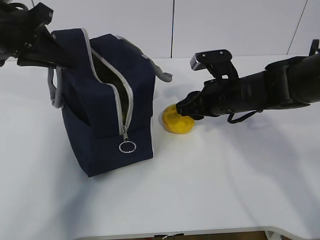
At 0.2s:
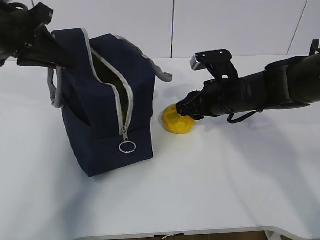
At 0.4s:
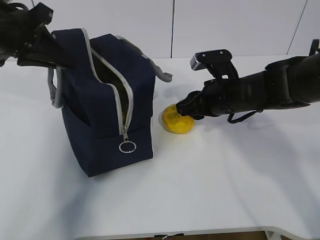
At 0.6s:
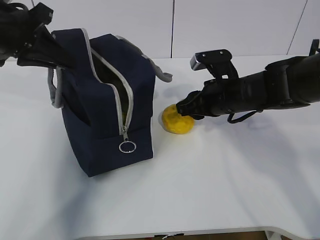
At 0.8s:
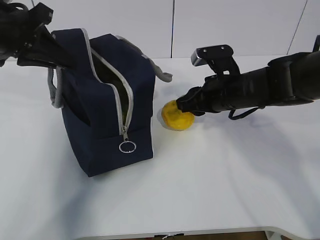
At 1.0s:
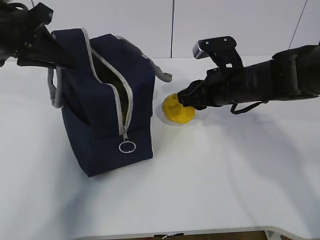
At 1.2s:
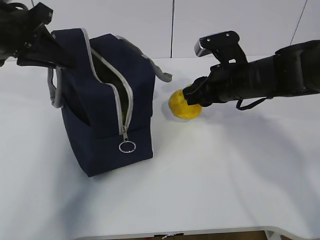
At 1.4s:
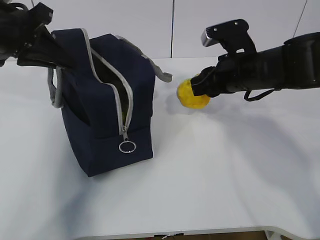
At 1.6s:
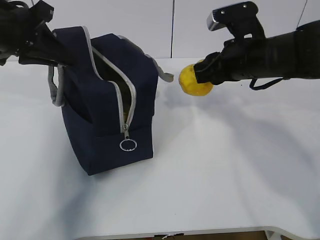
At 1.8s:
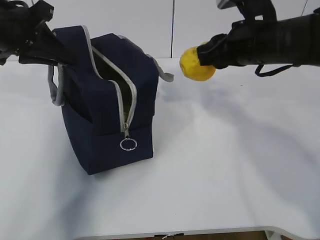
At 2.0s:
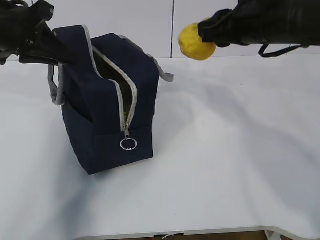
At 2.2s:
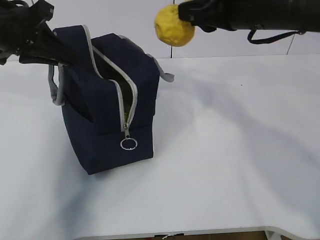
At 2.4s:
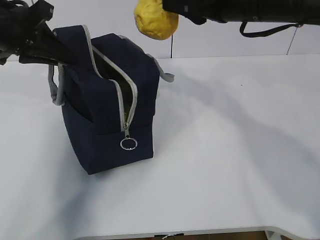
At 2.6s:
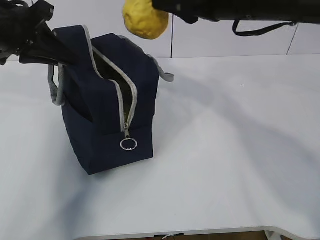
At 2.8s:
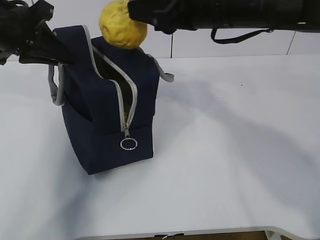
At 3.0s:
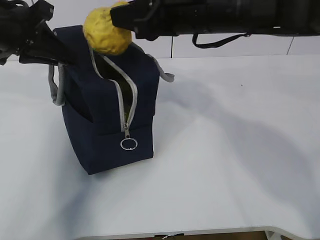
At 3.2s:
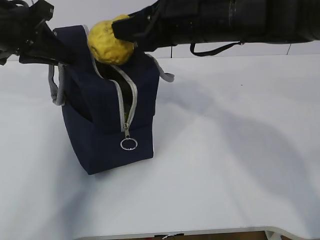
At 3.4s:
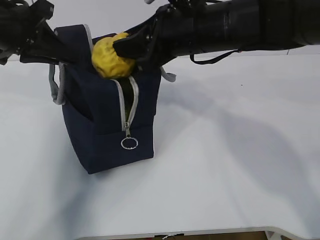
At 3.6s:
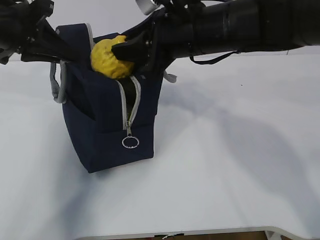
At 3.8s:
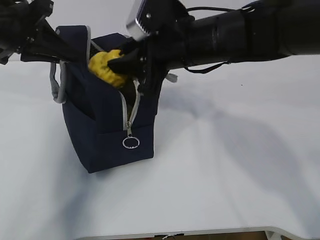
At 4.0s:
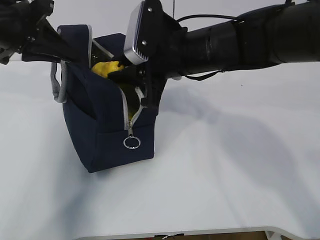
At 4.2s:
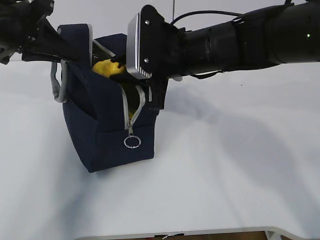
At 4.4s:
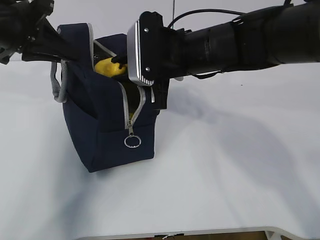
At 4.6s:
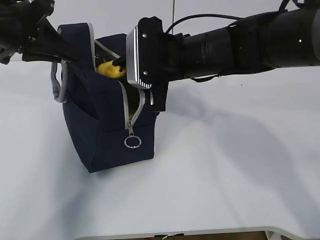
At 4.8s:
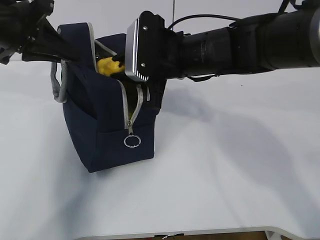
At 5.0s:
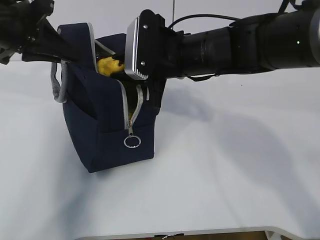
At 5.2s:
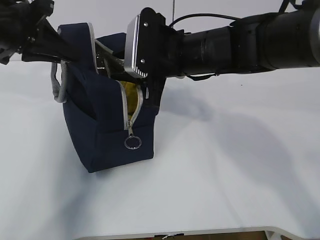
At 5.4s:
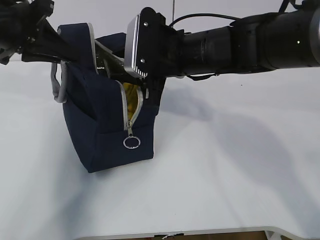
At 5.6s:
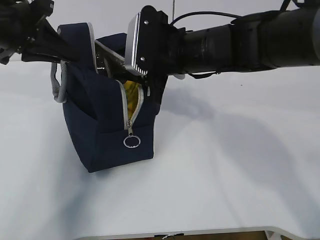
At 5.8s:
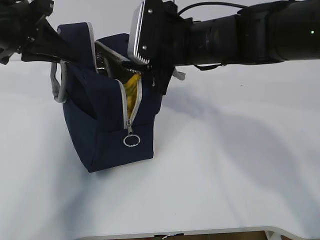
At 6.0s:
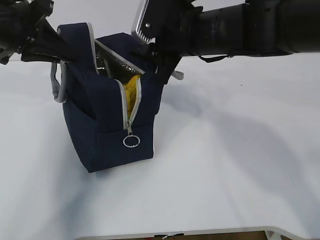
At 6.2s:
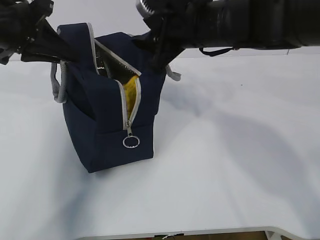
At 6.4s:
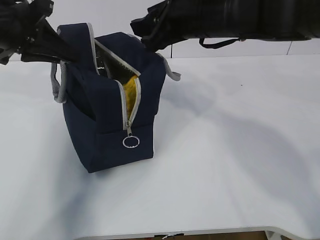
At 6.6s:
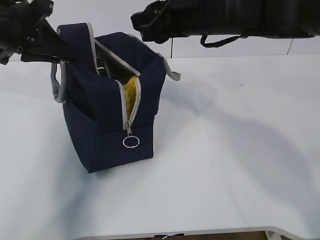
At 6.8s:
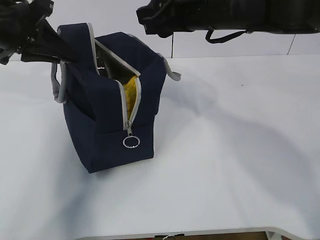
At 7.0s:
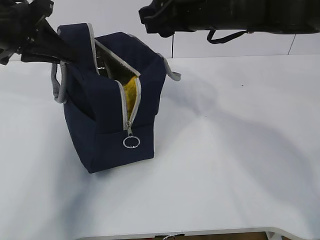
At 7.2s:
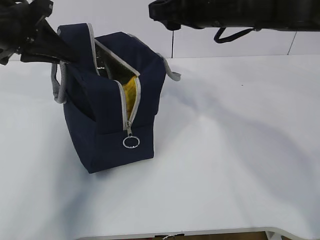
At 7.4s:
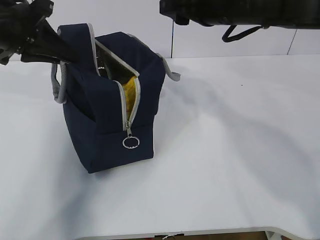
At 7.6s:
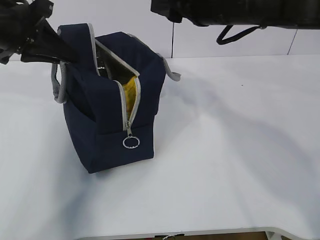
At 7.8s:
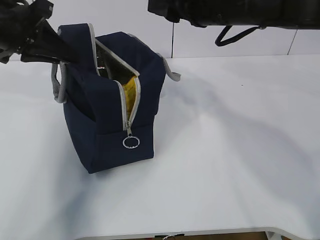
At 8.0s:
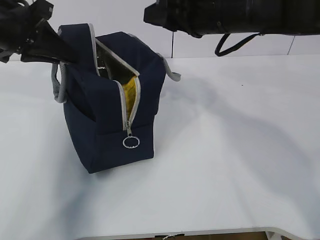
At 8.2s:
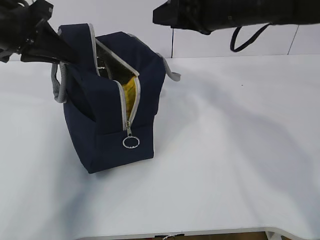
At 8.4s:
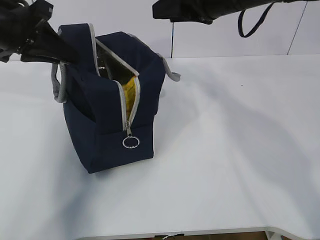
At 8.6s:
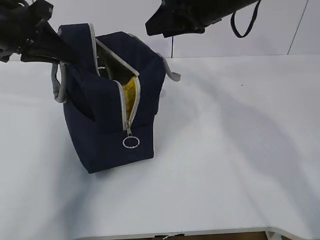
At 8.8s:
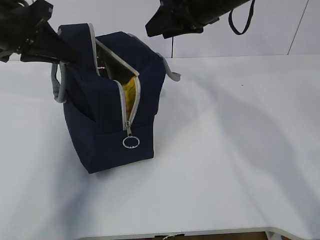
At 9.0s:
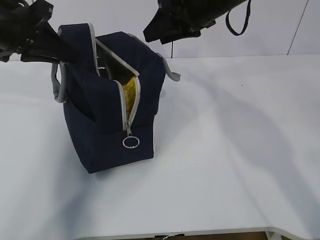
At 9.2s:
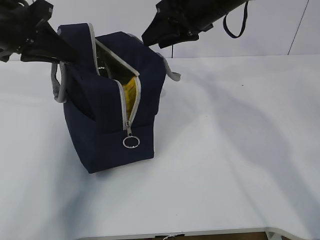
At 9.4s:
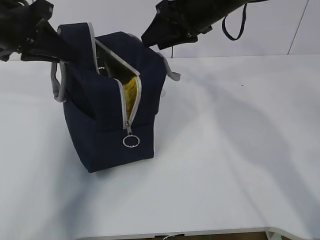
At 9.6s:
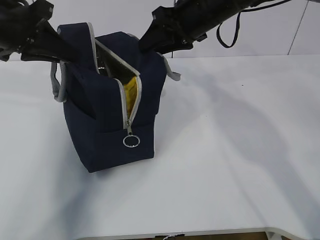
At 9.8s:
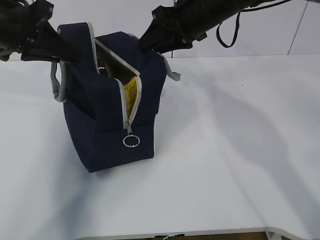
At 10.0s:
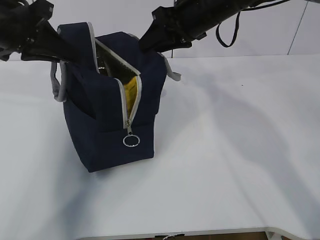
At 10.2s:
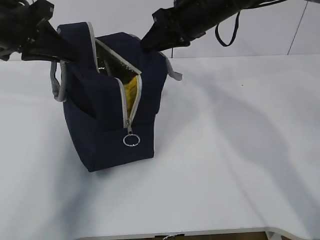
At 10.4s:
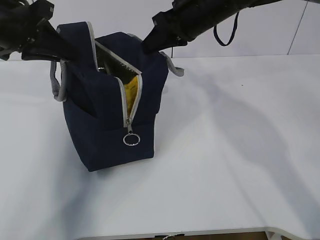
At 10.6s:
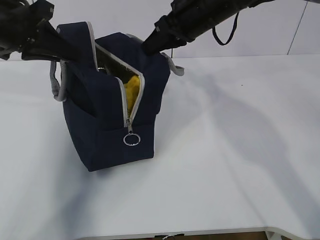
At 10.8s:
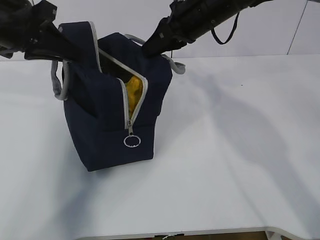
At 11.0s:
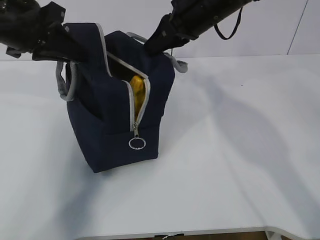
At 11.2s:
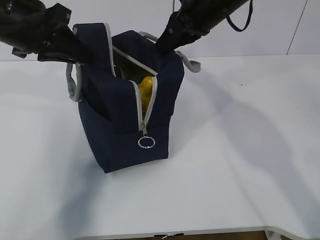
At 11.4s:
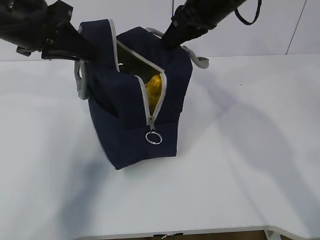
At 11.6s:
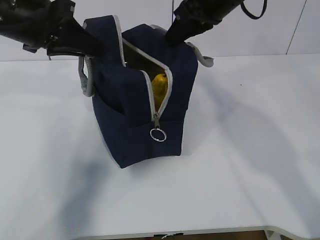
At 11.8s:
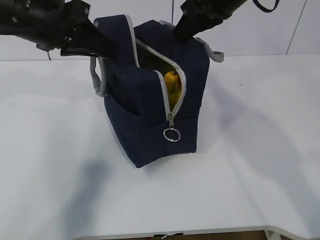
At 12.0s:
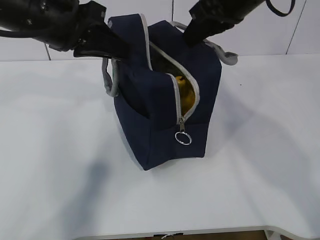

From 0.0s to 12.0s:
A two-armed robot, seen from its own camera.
From 0.0s to 1.6s: The right gripper moves upward, about 10 cm.
From 1.6s to 3.0s: The right gripper moves upward and to the left, roughly 10 cm.
From 3.0s to 4.4s: The right gripper travels downward by roughly 5 cm.
From 6.0s to 7.6s: The right gripper changes place by approximately 5 cm.
From 7.6s to 9.0s: The right gripper travels forward by about 5 cm.
From 9.0s to 10.4s: The right gripper closes its fingers.
From 10.4s to 12.0s: The right gripper is displaced backward and upward by roughly 10 cm. The left gripper travels to the right by some 10 cm.

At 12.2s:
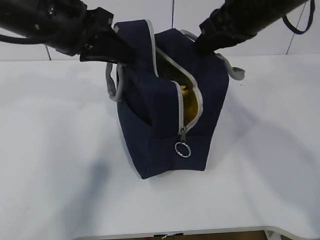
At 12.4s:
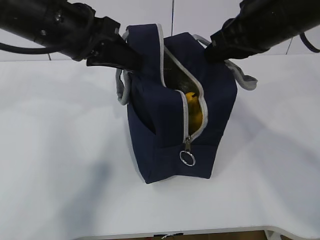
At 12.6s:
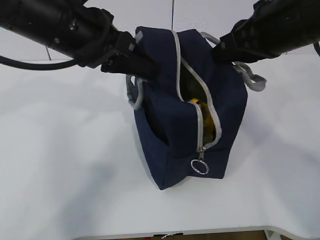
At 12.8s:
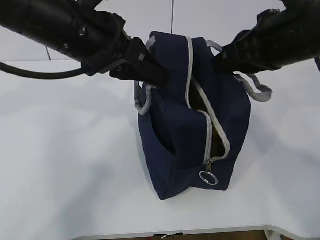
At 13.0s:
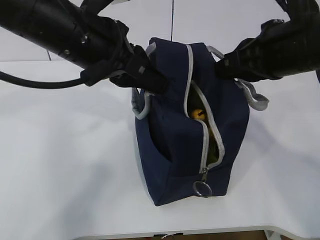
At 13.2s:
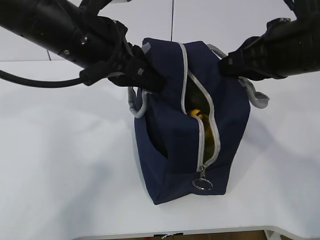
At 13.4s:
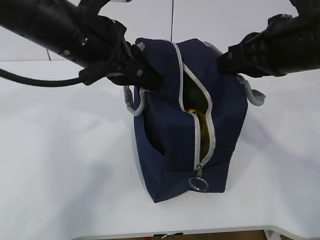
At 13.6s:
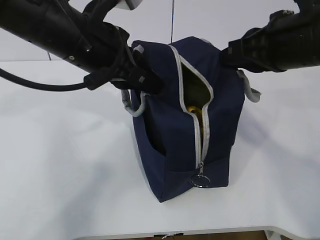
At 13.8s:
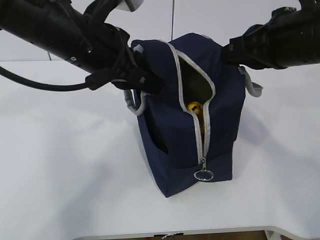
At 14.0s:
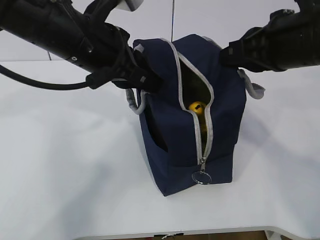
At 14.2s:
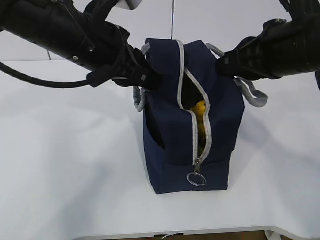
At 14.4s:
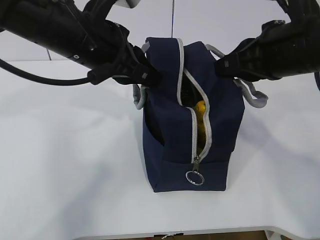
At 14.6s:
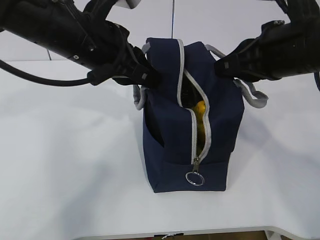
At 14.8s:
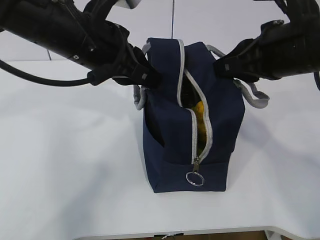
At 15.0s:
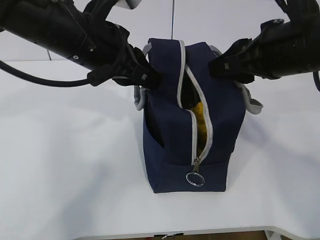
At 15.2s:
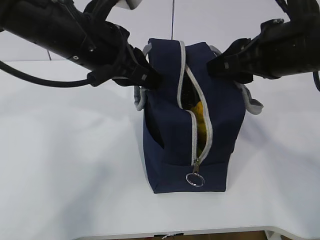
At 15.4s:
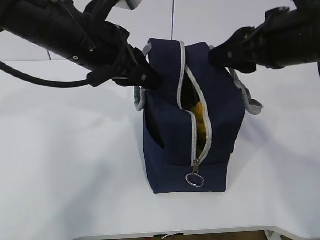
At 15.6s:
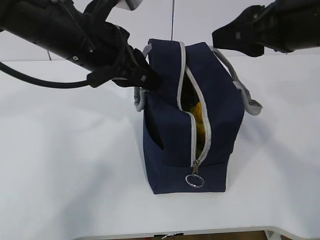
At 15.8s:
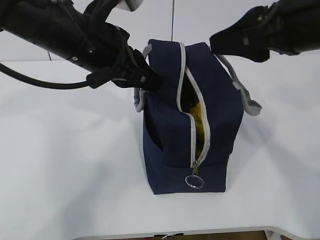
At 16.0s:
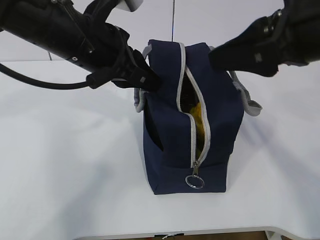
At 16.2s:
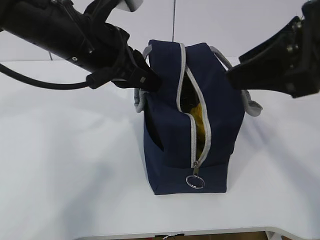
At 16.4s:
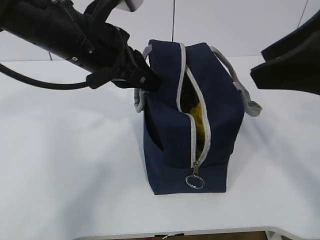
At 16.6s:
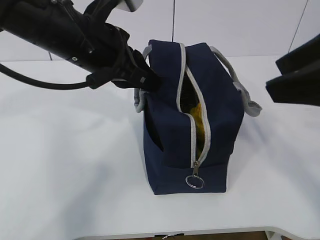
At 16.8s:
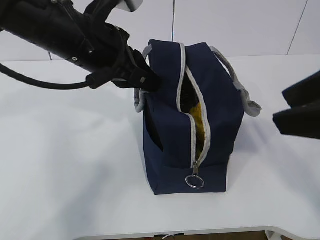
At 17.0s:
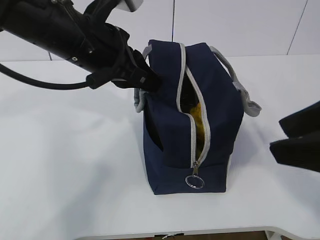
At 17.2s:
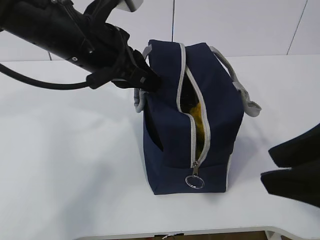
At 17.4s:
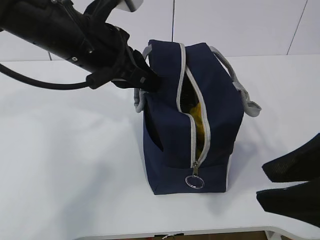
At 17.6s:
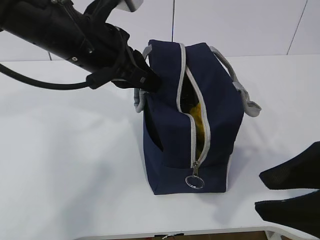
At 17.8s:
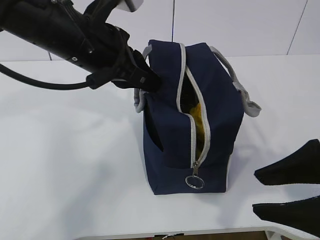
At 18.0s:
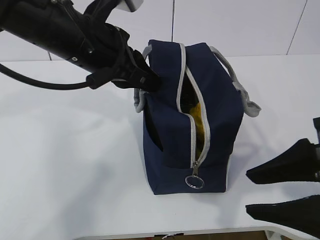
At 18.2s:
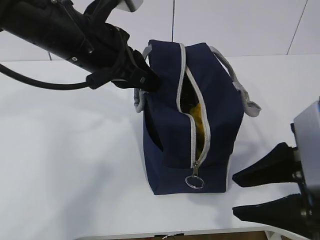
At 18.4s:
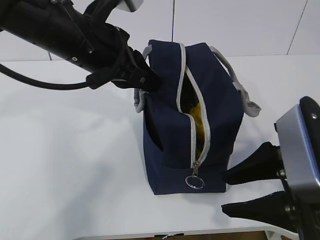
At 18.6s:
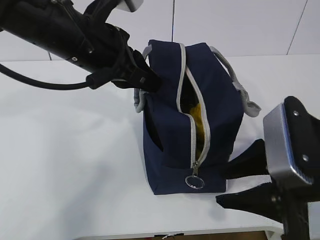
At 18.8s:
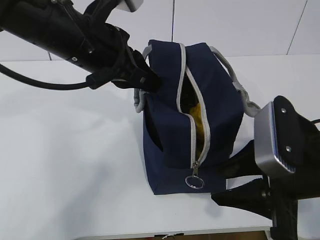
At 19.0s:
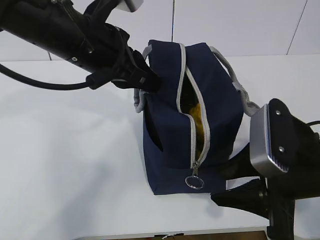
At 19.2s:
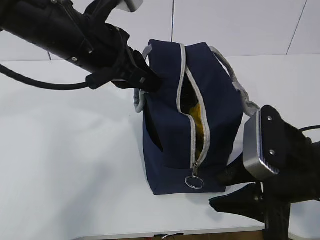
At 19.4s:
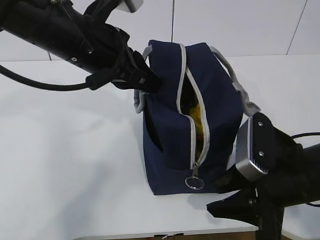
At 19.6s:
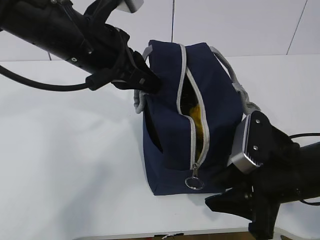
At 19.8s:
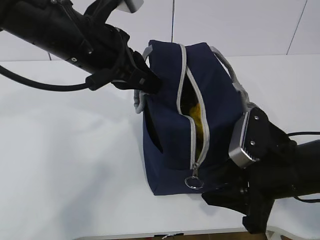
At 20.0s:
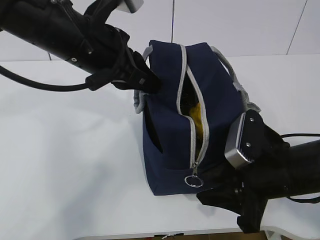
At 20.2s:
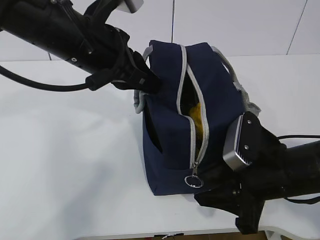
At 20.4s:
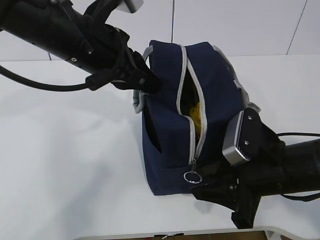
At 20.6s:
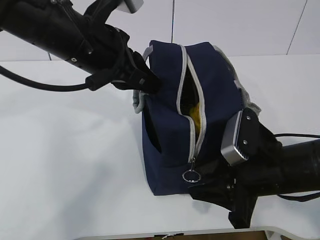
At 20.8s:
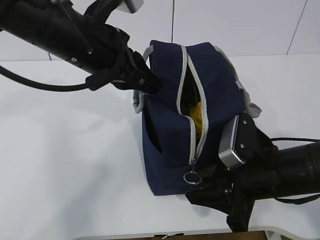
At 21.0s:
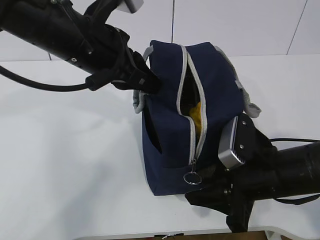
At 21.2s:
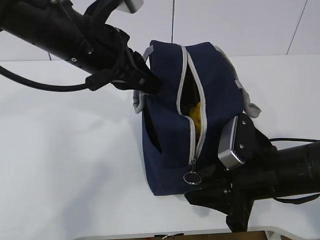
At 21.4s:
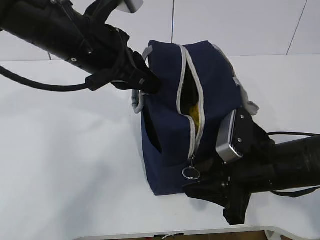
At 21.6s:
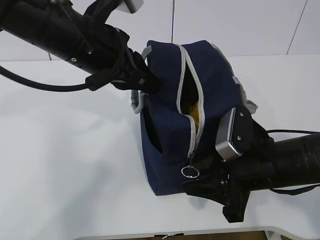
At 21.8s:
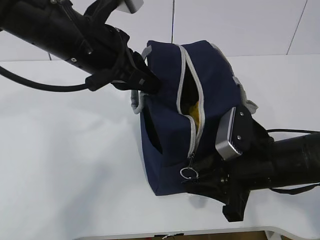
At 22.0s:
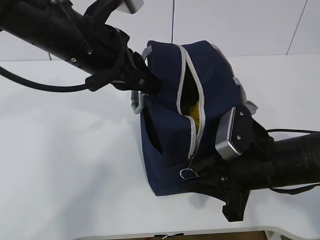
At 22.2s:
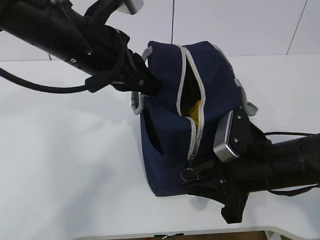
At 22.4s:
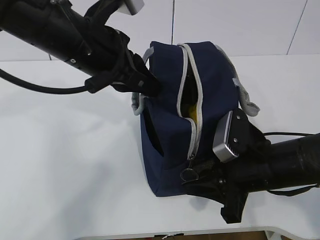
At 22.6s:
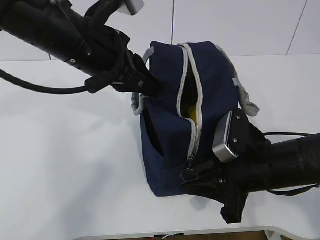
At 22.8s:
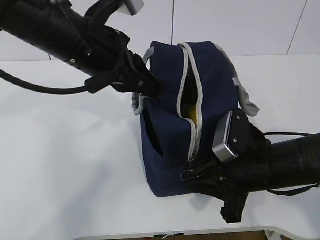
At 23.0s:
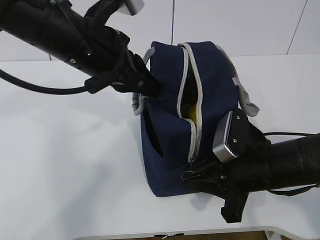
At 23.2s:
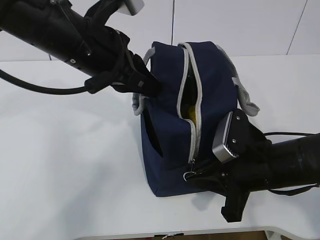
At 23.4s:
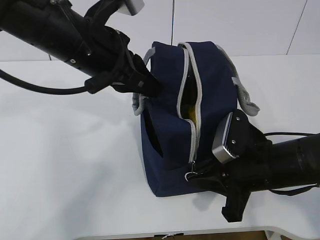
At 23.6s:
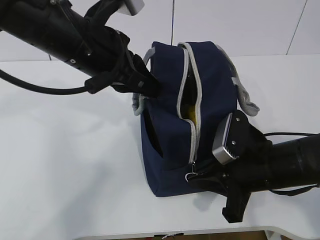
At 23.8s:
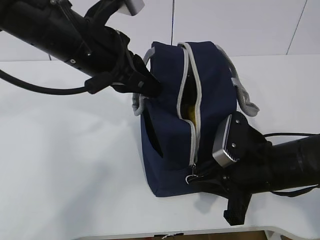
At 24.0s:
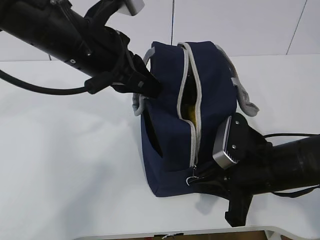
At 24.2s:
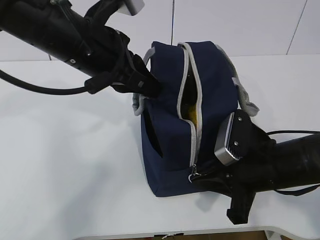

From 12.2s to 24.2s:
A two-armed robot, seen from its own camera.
From 12.2s to 13.8s: The left gripper moves to the right, approximately 5 cm, while the right gripper goes about 5 cm backward.
From 13.8s to 15.2s: The right gripper opens.
From 15.2s to 16.6s: The right gripper travels backward and upward by approximately 15 cm.
From 16.6s to 18.2s: The right gripper shifts about 10 cm downward.
From 18.2s to 19.8s: The right gripper moves downward and forward, approximately 10 cm.
From 19.8s to 21.2s: There are only small adjustments of the grippers.
From 21.2s to 22.6s: Neither gripper changes place.
From 22.6s to 24.2s: The right gripper closes.
